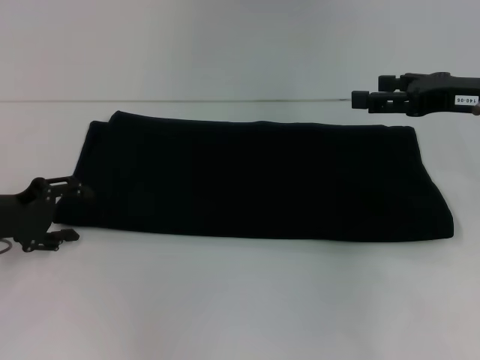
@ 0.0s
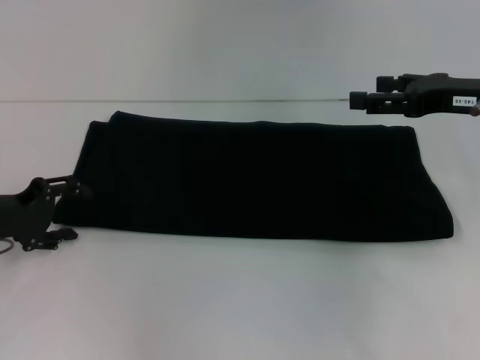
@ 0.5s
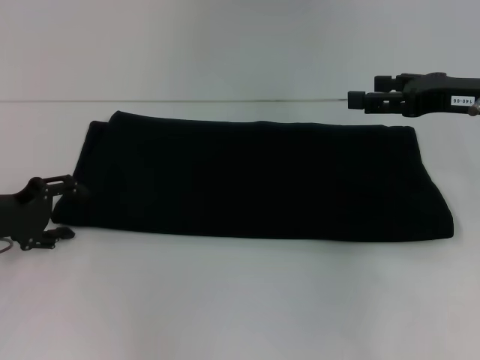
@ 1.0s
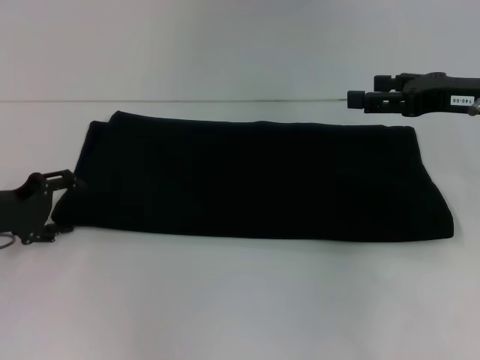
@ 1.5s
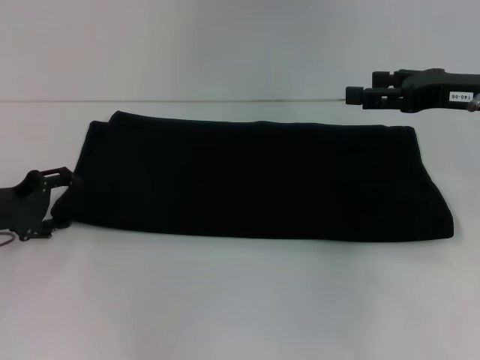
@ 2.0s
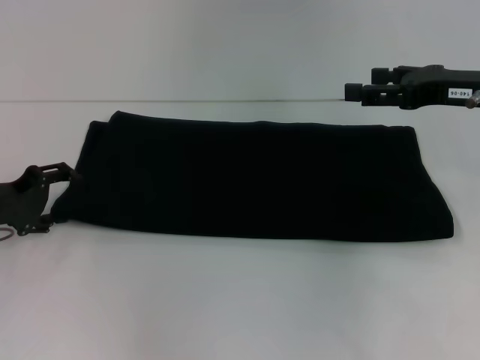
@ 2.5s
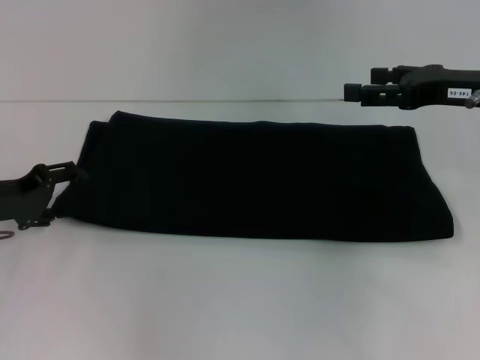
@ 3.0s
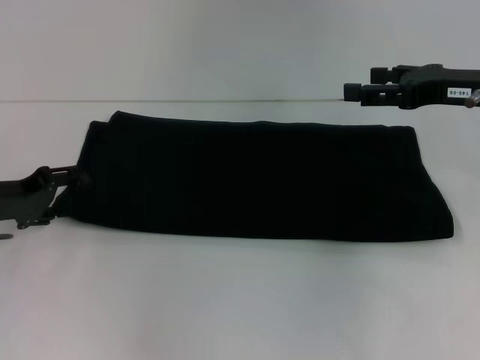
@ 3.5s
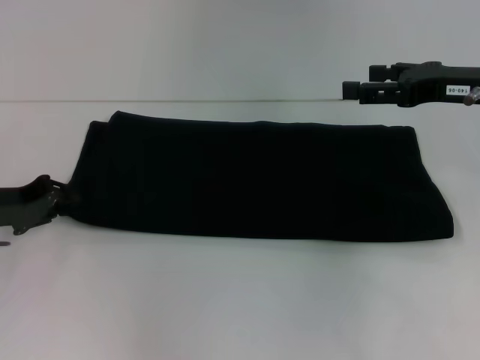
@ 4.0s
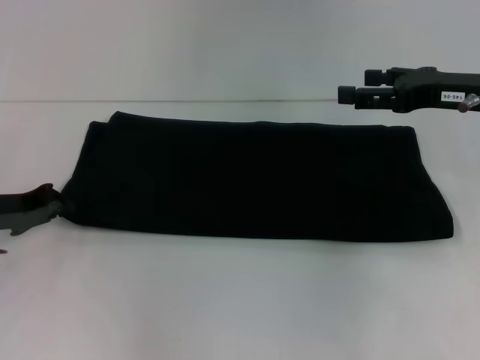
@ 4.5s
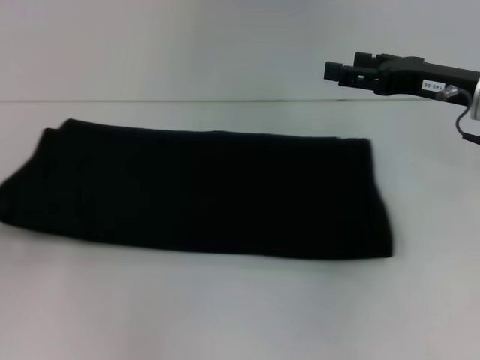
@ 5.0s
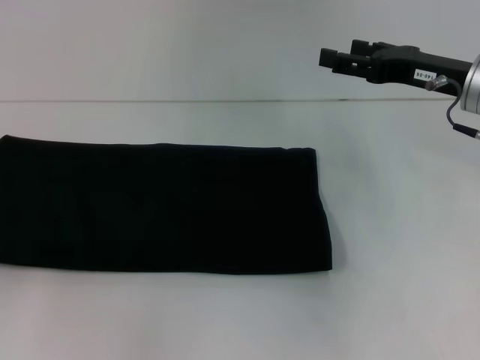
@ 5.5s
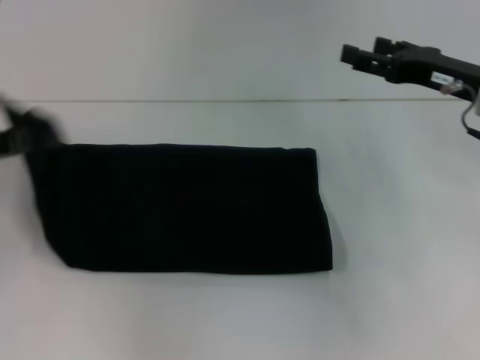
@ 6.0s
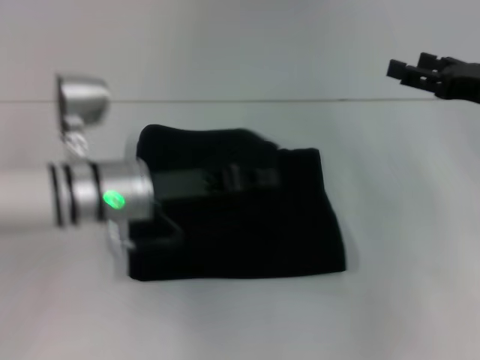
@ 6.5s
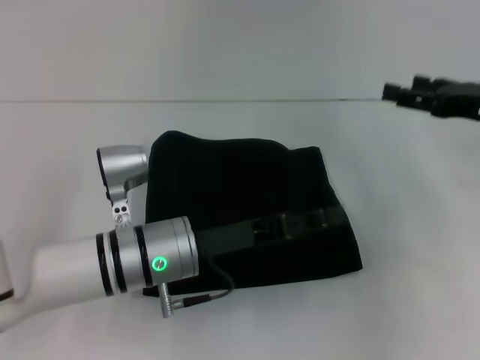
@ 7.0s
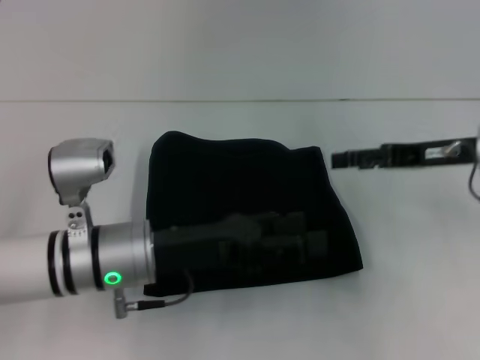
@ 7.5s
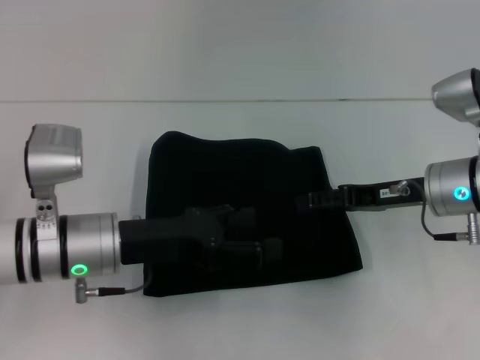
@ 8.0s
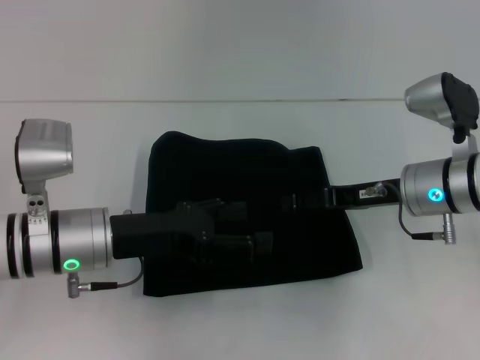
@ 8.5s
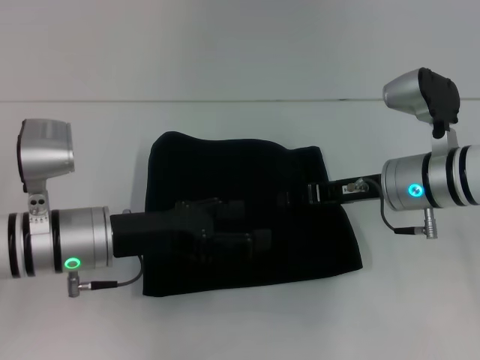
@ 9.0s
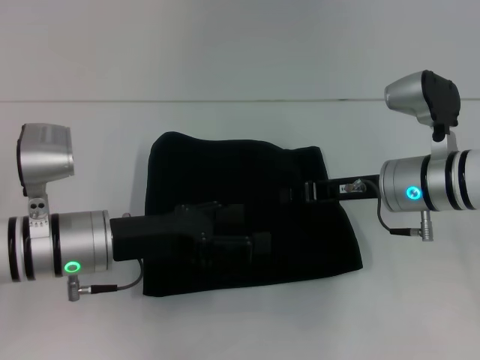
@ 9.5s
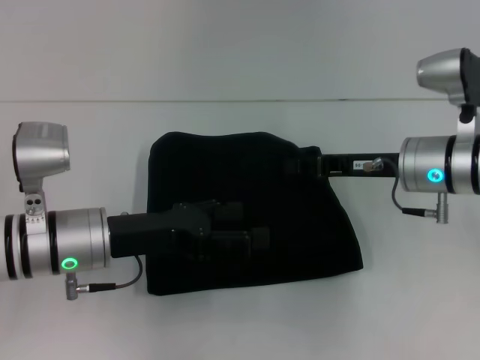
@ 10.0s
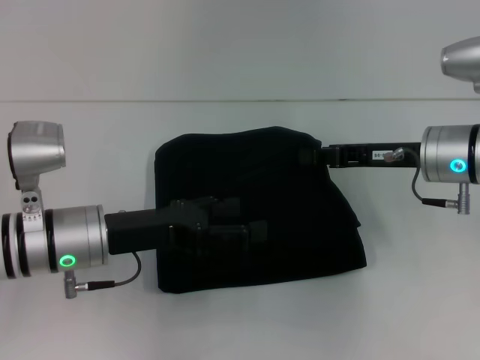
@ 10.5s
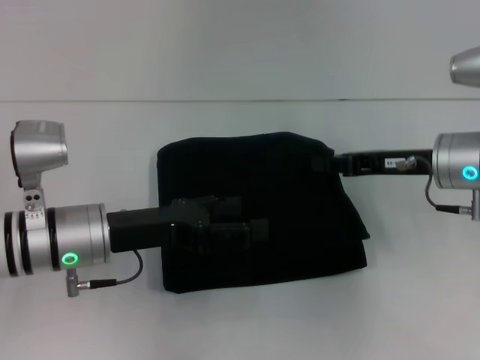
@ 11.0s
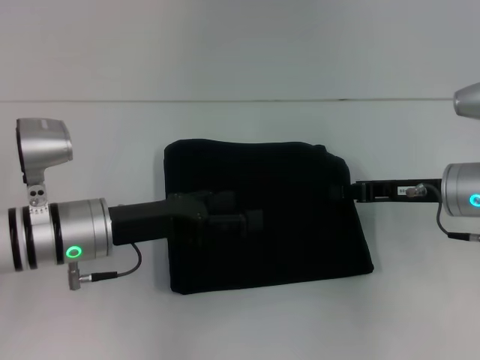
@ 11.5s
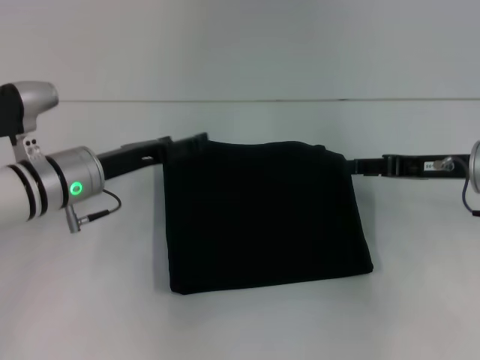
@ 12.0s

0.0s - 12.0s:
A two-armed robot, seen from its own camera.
Step, 0.0s - 7.5s: Fold the clothes with your left hand.
0.0s - 2.0s: The grippers move only a little.
2.0s - 4.0s: The left gripper closes.
4.0s - 6.0s: The left gripper shifts about 10 cm upward, reaches roughly 10 cm to the left, then returns, and closes its fingers.
6.0s - 8.0s: The left gripper travels to the right and downward by some 20 cm, and opens its fingers. Meanwhile the right gripper goes approximately 5 cm downward.
8.0s - 10.0s: The right gripper closes its fingers.
10.0s - 12.0s: The left gripper moves forward, about 5 cm, while the right gripper is displaced to the right by some 5 cm, and opens its fingers.

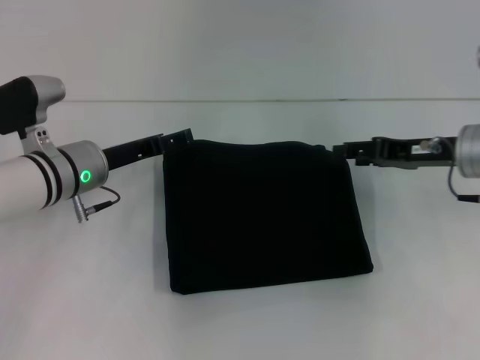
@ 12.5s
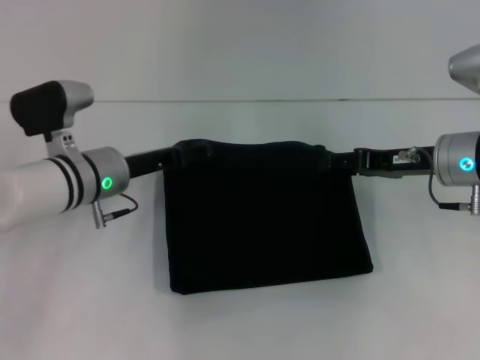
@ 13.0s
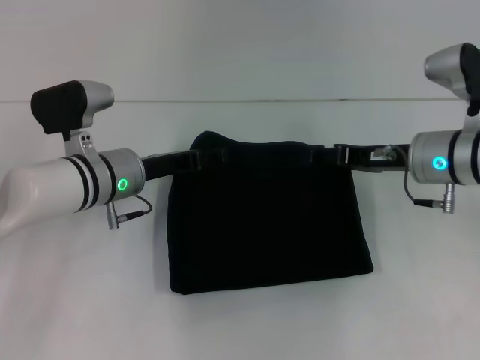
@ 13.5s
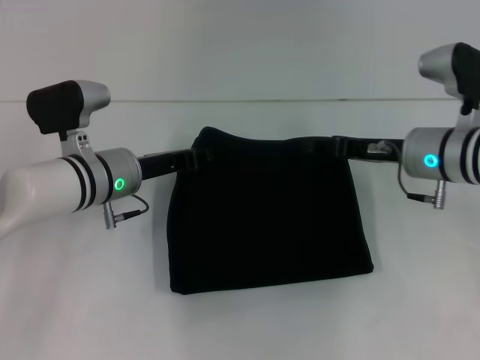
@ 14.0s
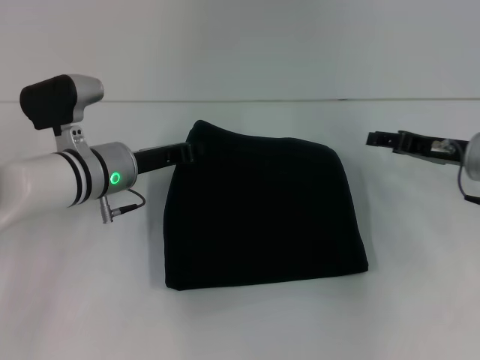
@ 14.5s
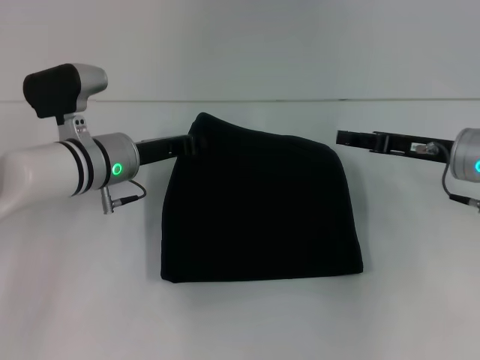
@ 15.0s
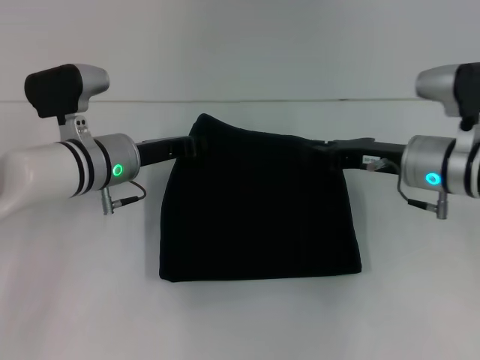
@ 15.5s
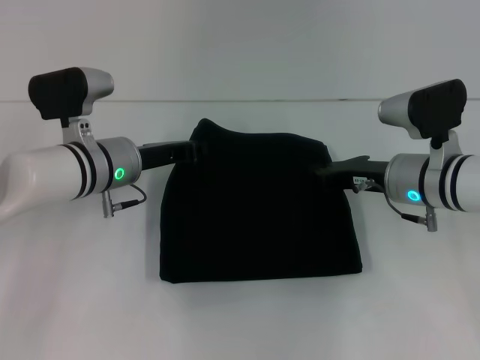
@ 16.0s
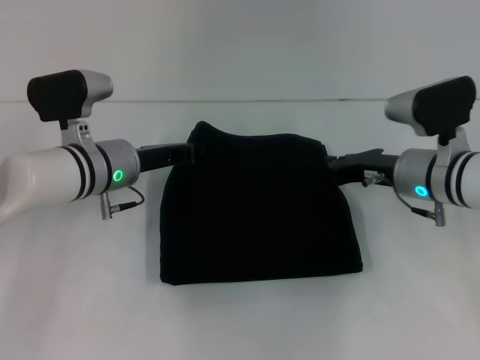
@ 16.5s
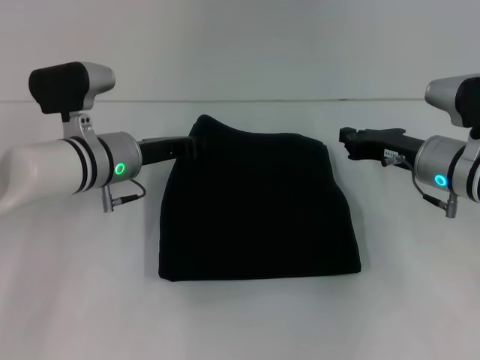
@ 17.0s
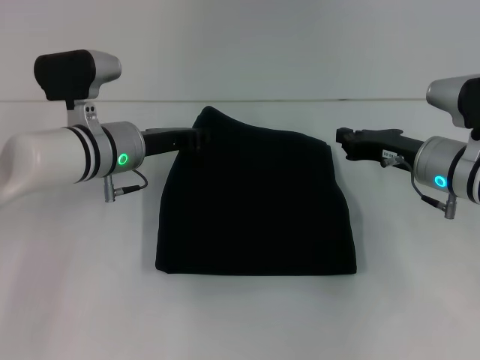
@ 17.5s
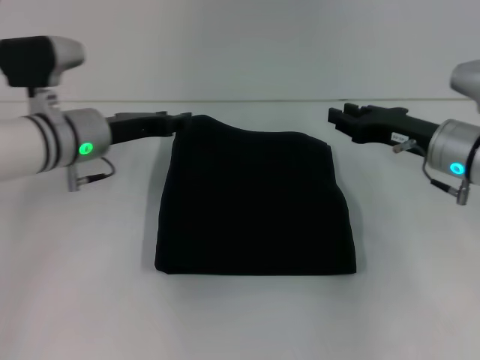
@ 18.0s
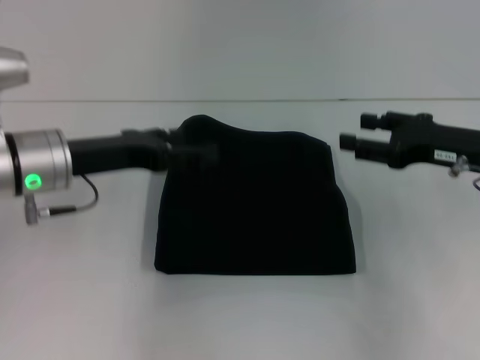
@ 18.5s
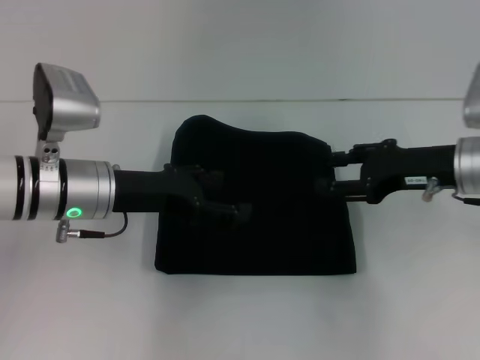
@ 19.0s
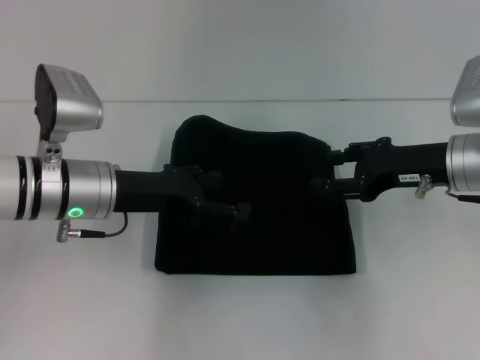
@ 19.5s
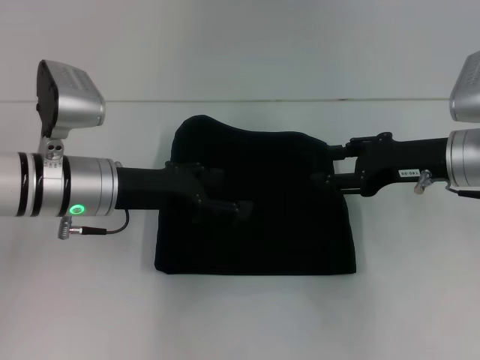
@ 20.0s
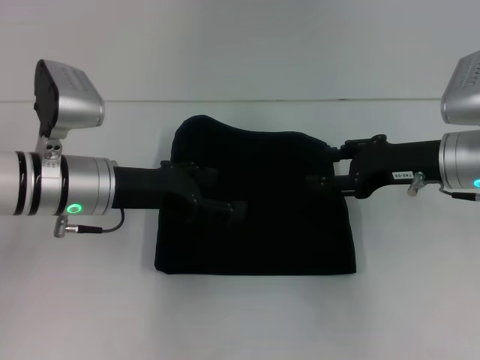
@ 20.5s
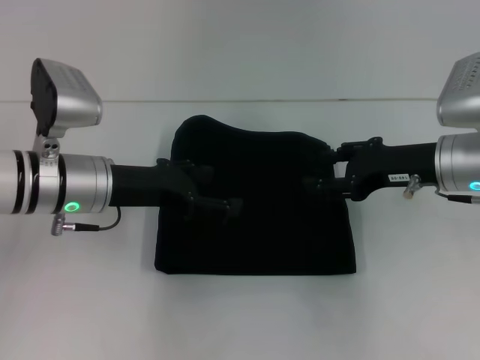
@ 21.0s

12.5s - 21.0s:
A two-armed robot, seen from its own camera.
12.5s - 14.5s: The left gripper closes its fingers.
14.5s - 16.5s: The right gripper heads to the left, covering roughly 5 cm, and closes.
16.5s - 19.0s: The right gripper travels upward by some 5 cm, and opens its fingers; the left gripper moves backward, roughly 5 cm, and opens.
19.0s - 21.0s: There are only small adjustments of the grippers.

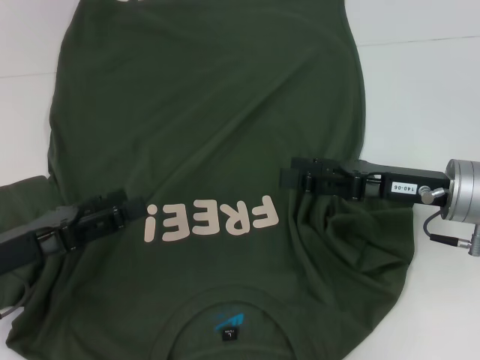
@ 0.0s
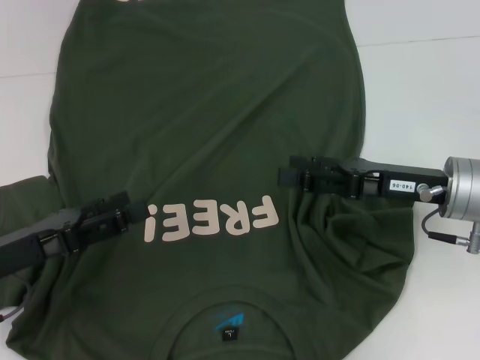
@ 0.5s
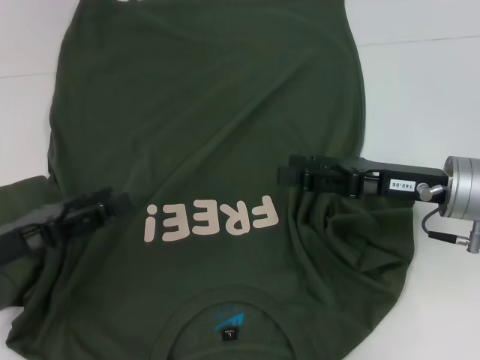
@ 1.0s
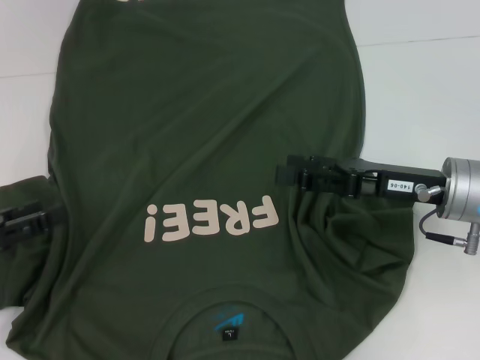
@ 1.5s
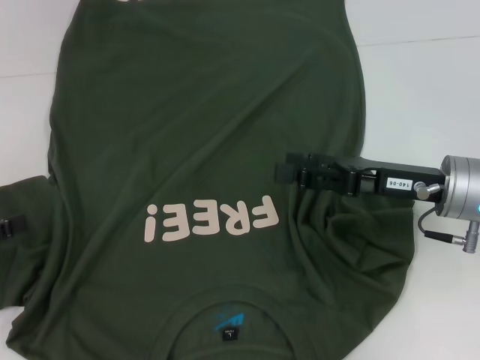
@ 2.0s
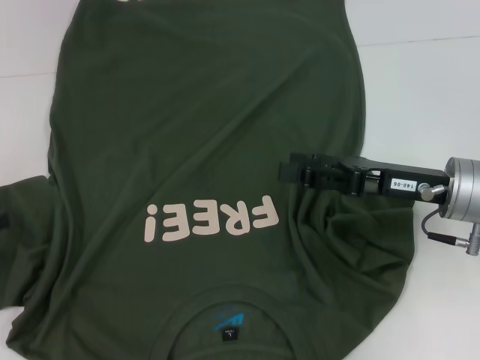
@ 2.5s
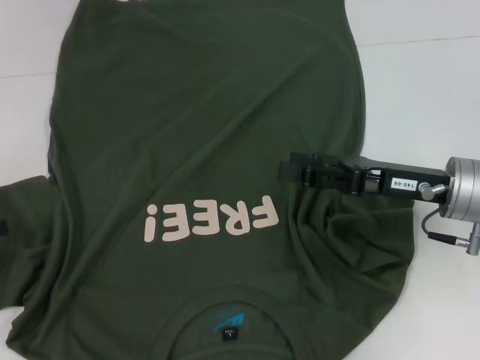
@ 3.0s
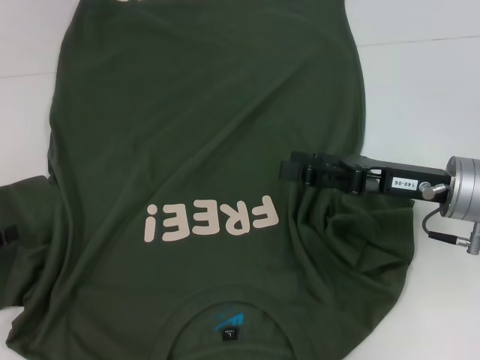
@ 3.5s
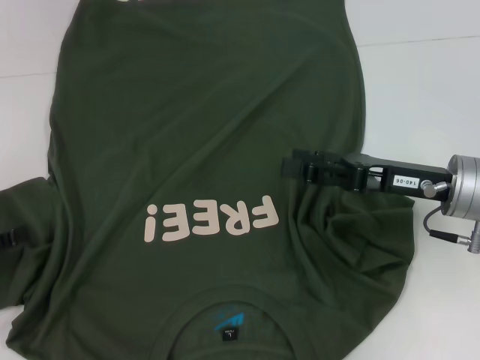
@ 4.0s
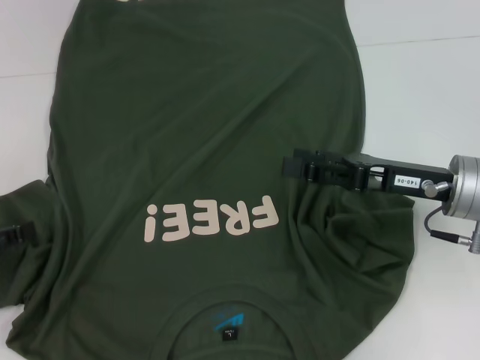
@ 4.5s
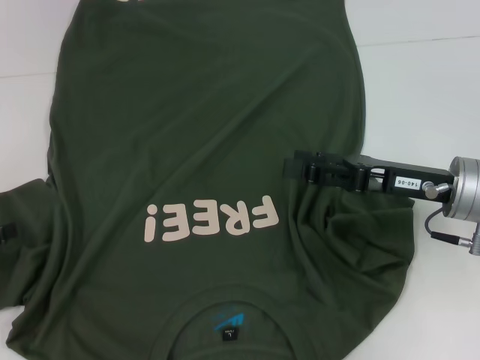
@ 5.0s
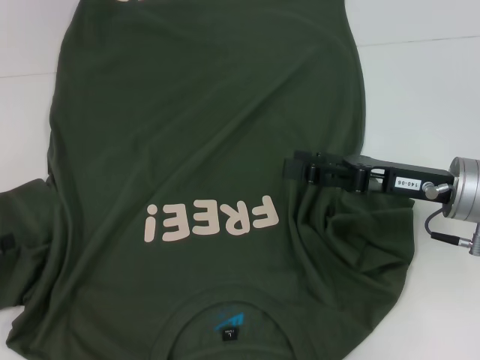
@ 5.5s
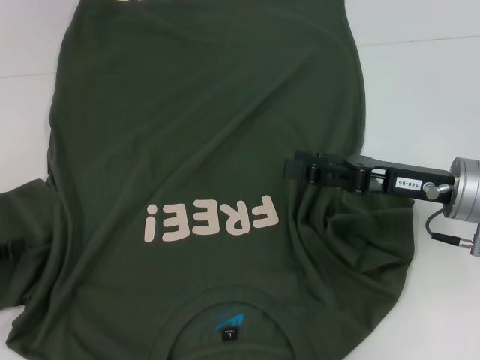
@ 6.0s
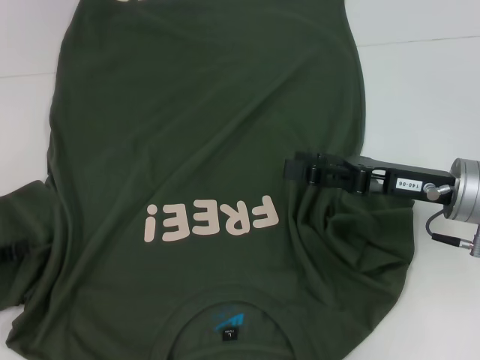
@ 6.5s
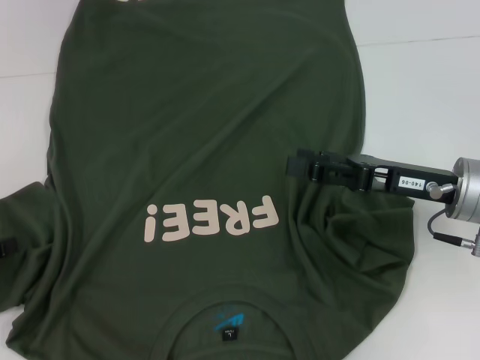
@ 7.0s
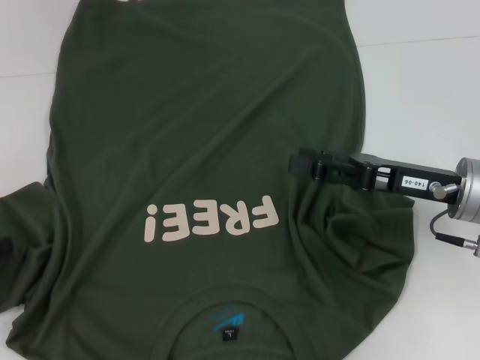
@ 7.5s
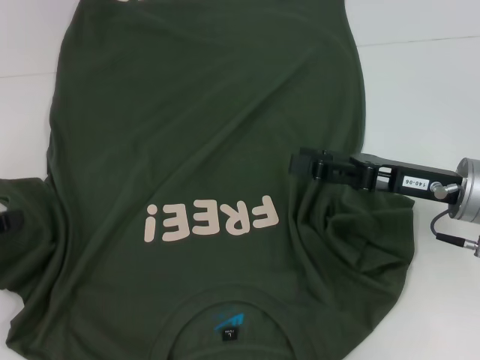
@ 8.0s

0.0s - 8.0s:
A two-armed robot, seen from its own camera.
0.0s - 2.0s: The left gripper heads to the left, covering roughly 10 cm.
2.0s - 4.0s: There are only small adjustments of the grippers.
4.0s - 6.0s: Neither gripper changes place.
6.0s - 8.0s: The left gripper closes.
